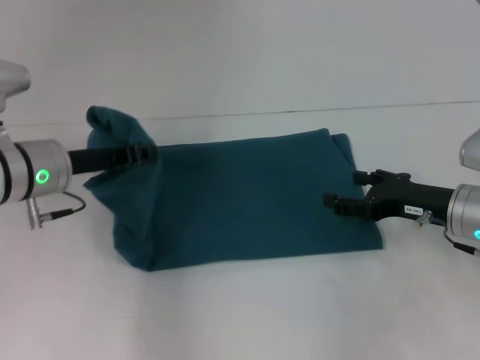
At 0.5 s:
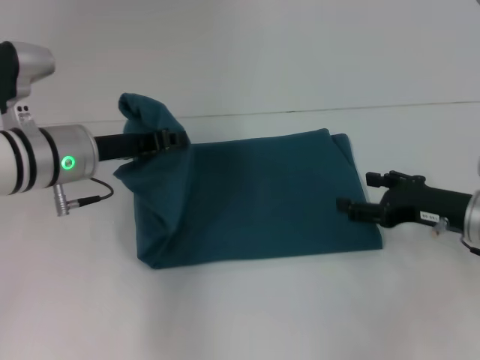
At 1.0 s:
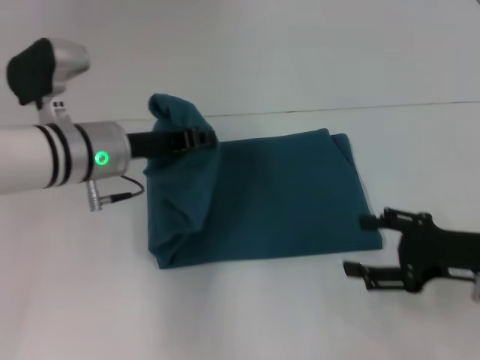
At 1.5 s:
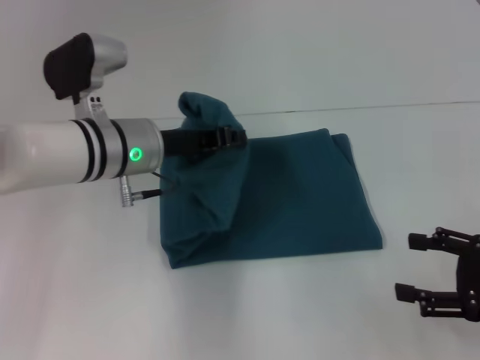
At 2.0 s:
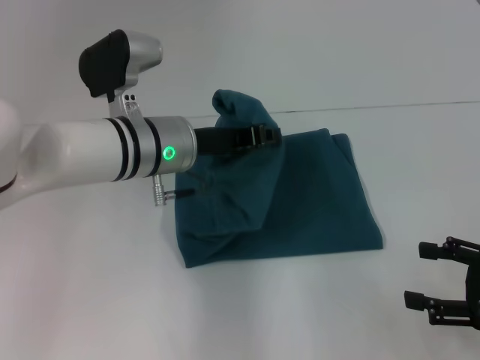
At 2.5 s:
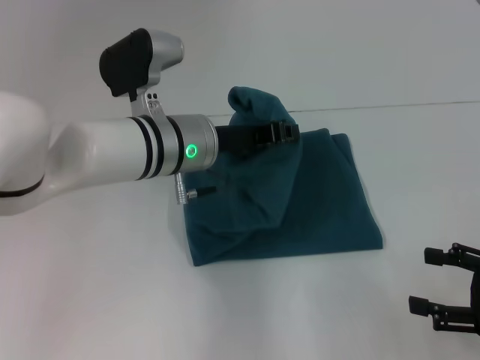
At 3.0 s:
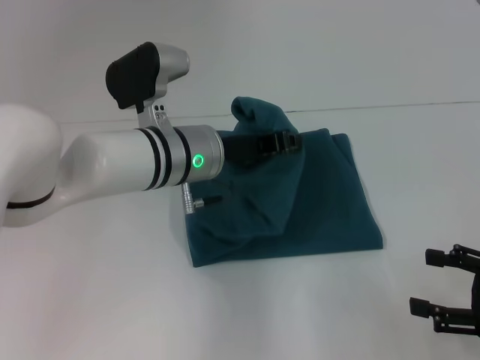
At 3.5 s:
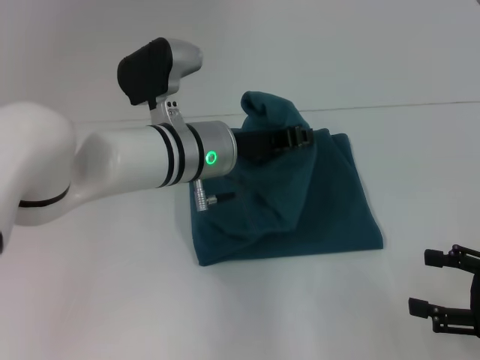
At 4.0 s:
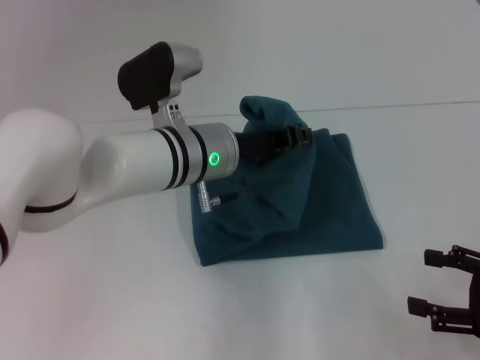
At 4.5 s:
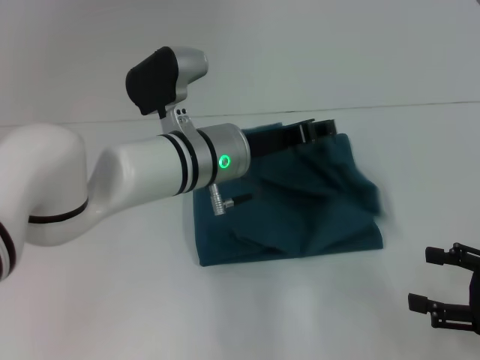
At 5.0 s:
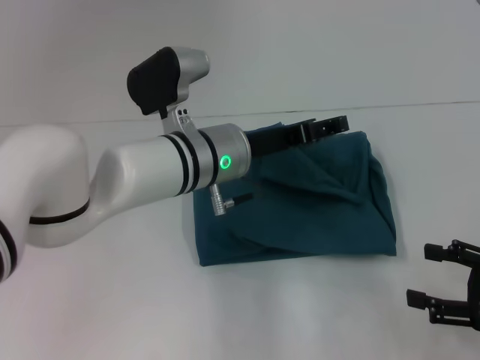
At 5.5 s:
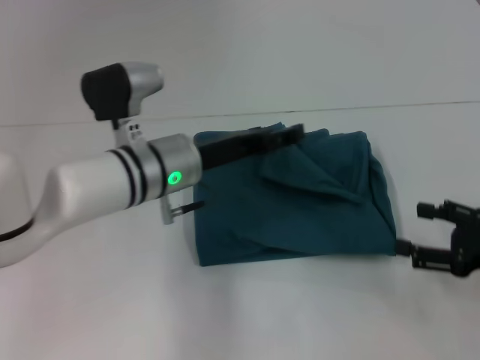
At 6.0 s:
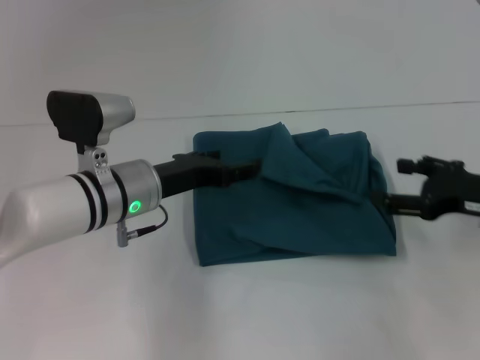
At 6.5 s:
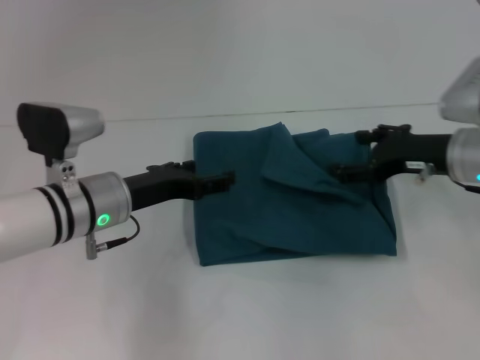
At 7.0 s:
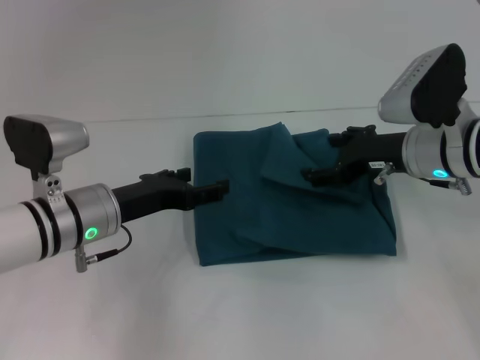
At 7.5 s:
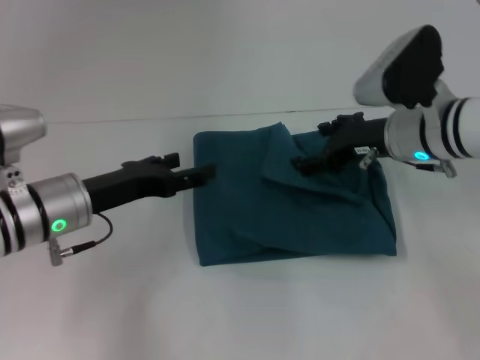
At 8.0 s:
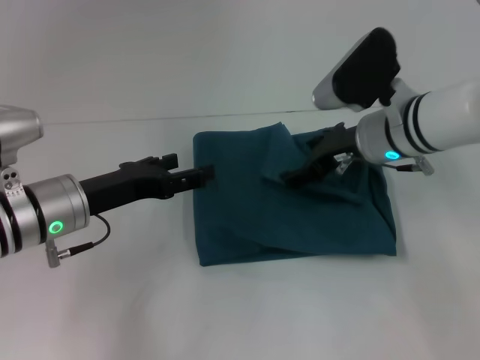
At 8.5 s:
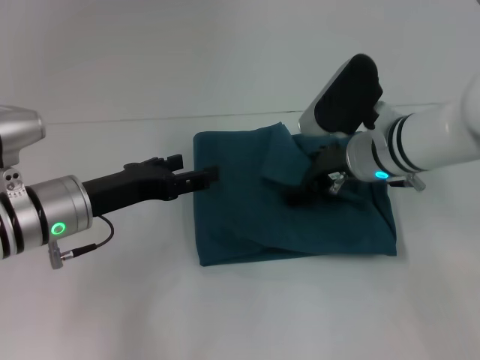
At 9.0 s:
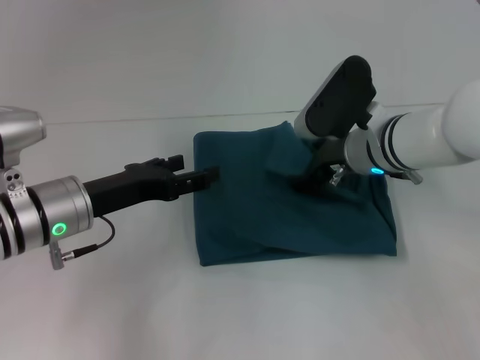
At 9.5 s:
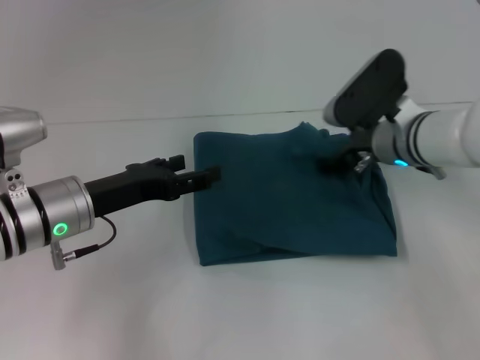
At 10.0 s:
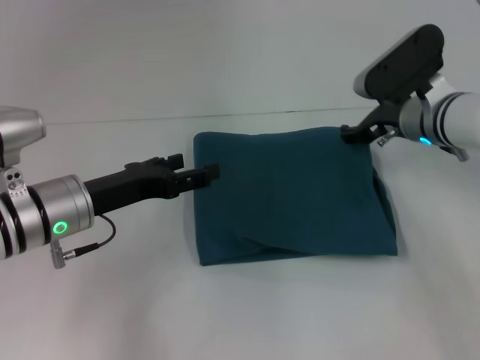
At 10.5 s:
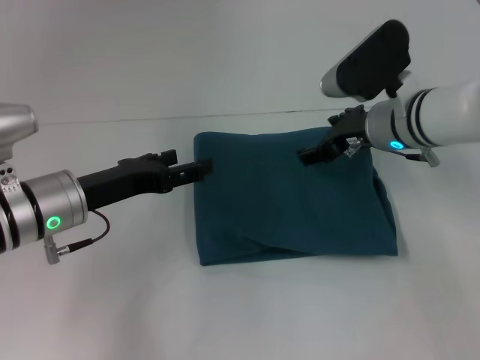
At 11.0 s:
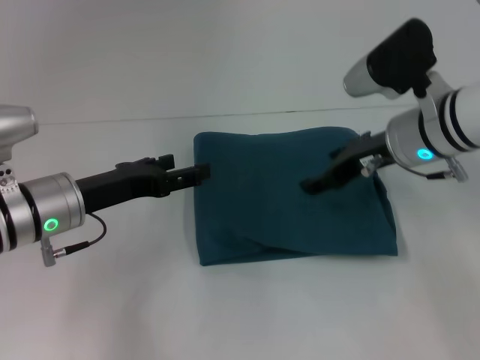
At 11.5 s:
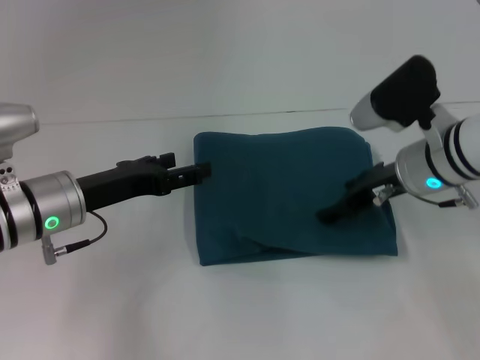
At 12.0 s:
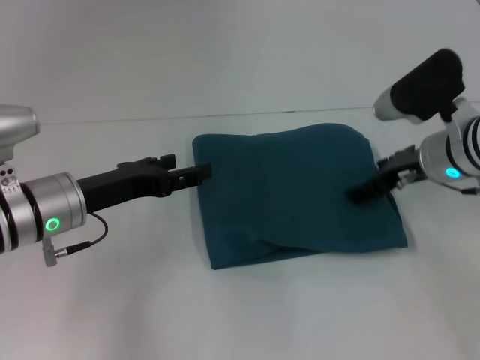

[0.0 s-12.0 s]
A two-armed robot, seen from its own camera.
Step, 0.0 to 4.5 s: Fold the clothes to the left.
0.0 to 2.0 s: The left gripper shifts about 10 cm to the right. Meanwhile the right gripper goes approximately 15 cm backward and to the right.
2.0 to 4.0 s: The grippers move only a little.
4.0 to 6.0 s: The left gripper heads to the left, covering about 10 cm, and opens its fingers; the right gripper is displaced forward by approximately 10 cm.
6.0 to 8.0 s: The right gripper is displaced to the left and forward by approximately 20 cm. The left gripper shifts some 5 cm to the left.
8.0 to 10.0 s: The right gripper changes place by approximately 5 cm.

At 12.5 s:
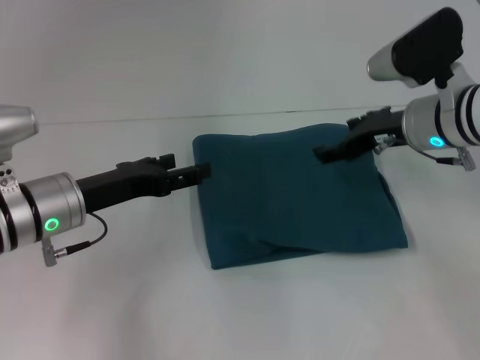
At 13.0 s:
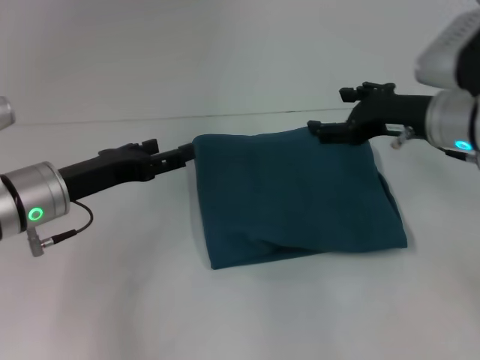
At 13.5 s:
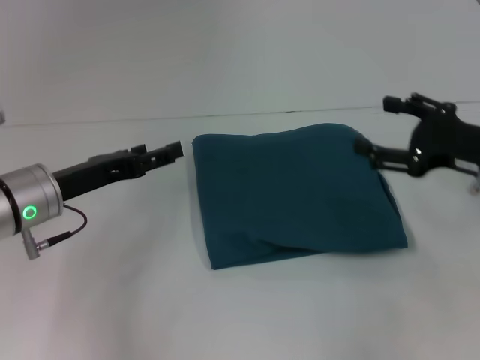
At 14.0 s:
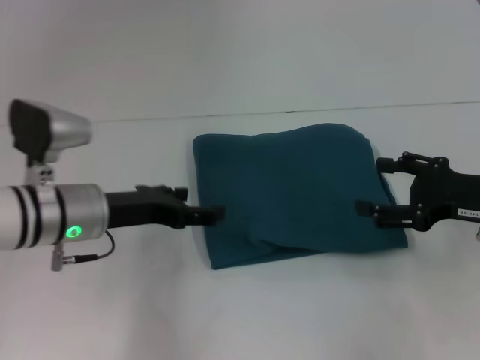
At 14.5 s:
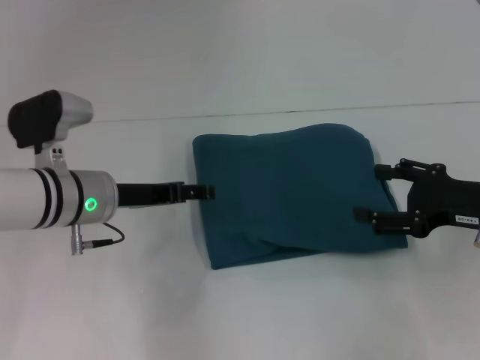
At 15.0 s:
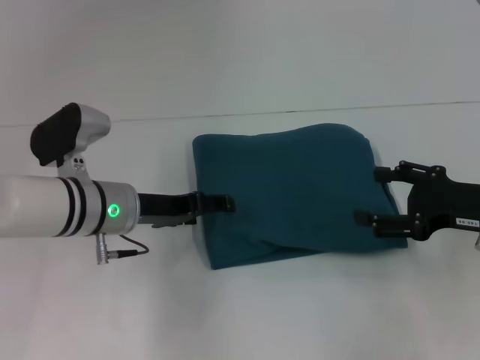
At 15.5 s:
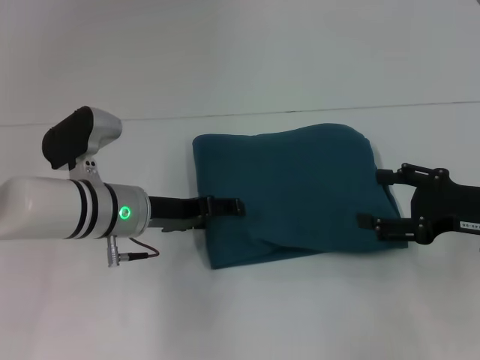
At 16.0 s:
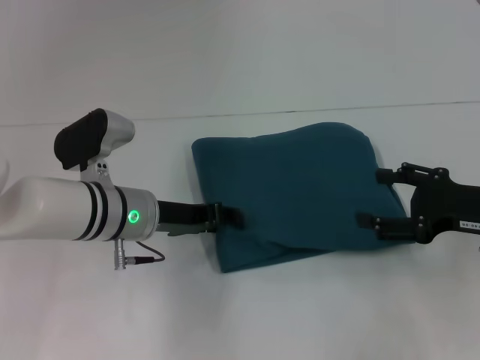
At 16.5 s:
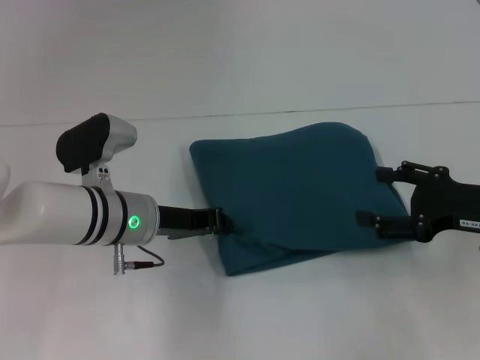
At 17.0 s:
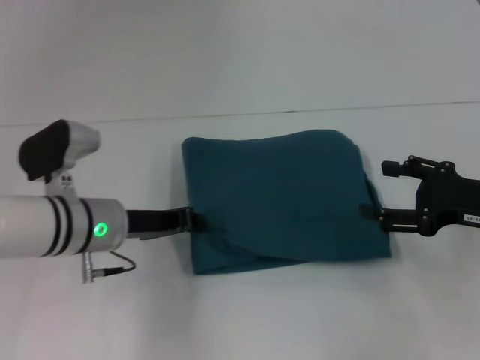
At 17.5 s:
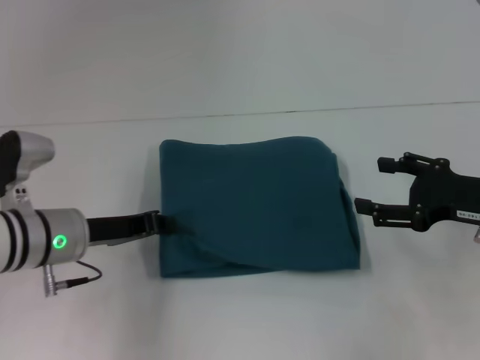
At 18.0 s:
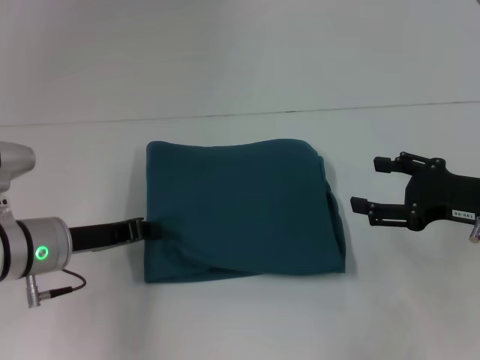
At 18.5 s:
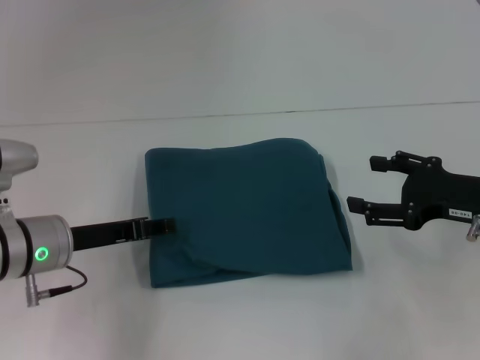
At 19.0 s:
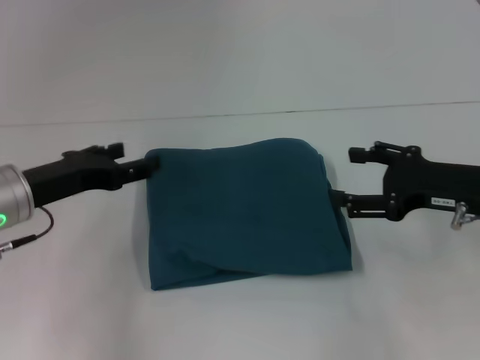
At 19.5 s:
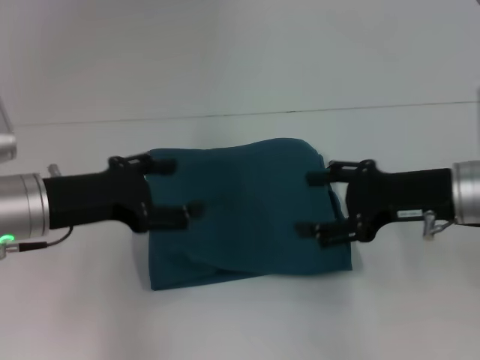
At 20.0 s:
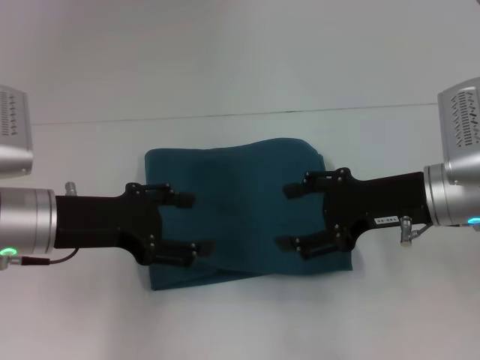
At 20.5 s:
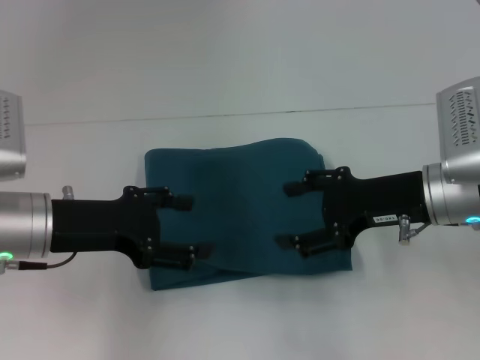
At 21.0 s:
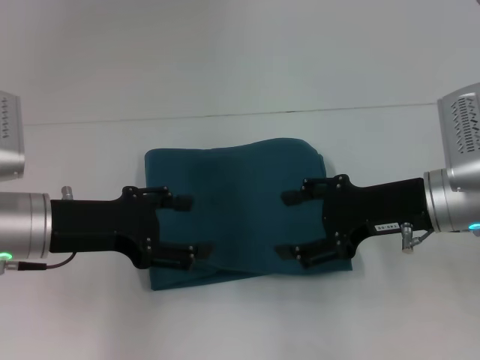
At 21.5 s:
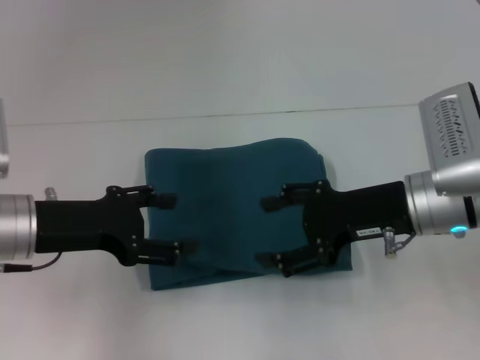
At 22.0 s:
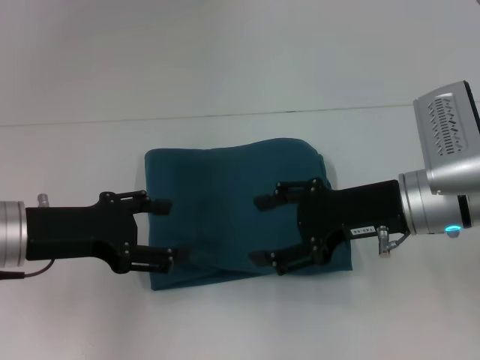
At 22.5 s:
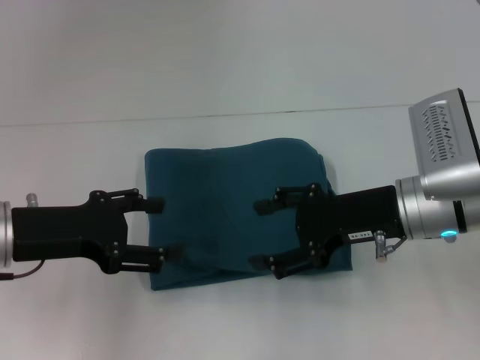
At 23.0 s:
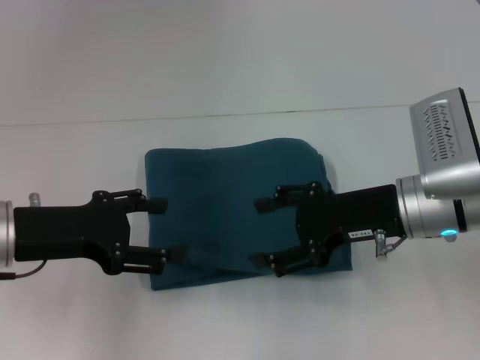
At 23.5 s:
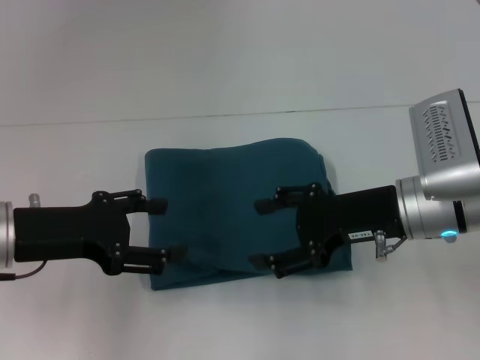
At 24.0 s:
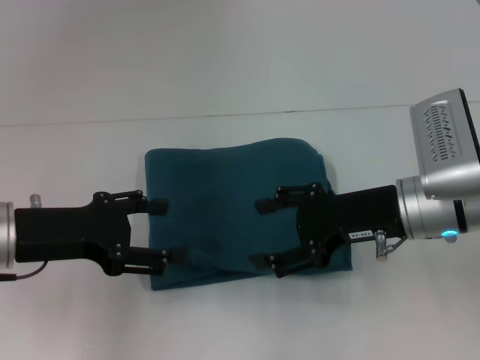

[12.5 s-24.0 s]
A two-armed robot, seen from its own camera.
12.5 to 14.5 s: The right gripper goes about 15 cm backward and to the right.
14.5 to 16.5 s: The left gripper closes up.
16.5 to 18.5 s: The left gripper goes approximately 10 cm to the left.
18.5 to 20.0 s: The right gripper moves to the left, some 10 cm. Meanwhile the left gripper moves upward, some 5 cm, and opens its fingers.
20.0 to 22.0 s: The grippers make only small movements.
22.0 to 24.0 s: Both grippers stay put.

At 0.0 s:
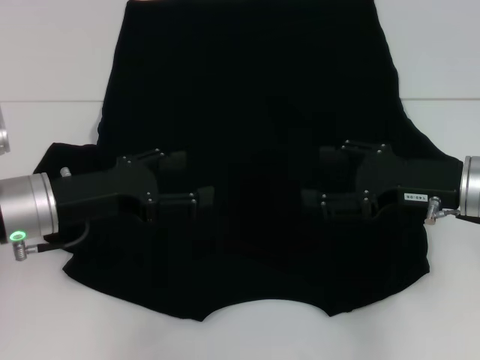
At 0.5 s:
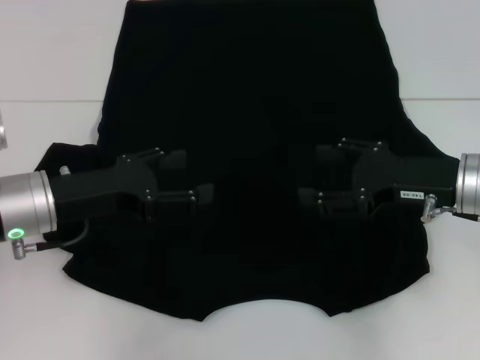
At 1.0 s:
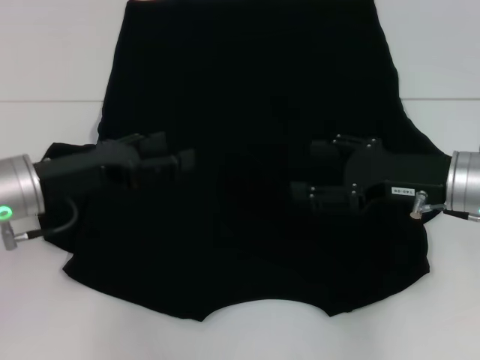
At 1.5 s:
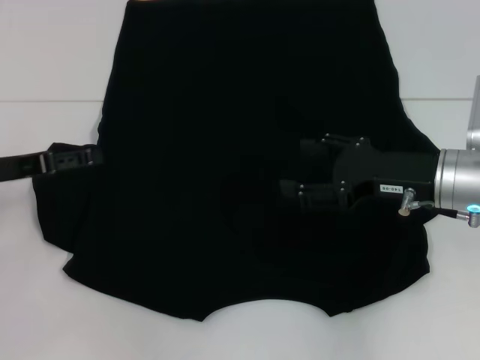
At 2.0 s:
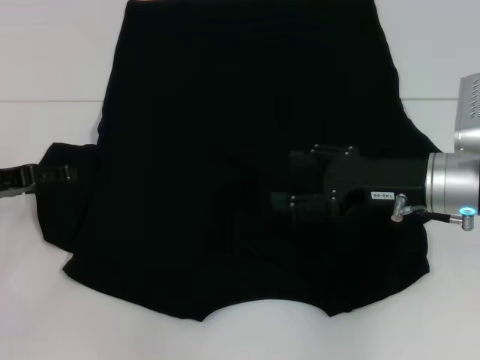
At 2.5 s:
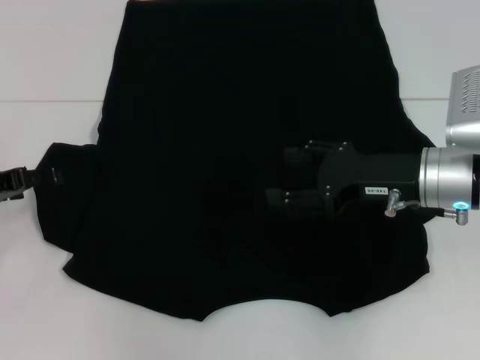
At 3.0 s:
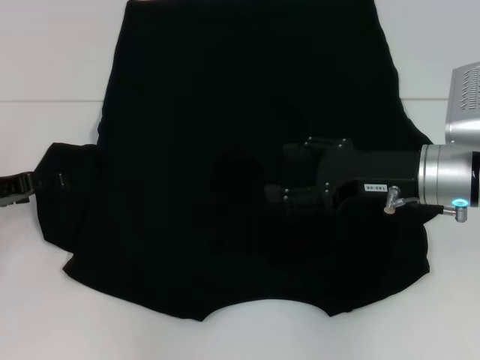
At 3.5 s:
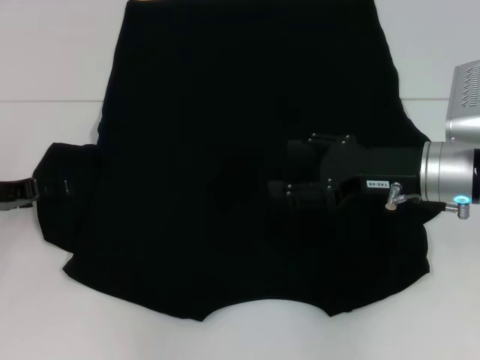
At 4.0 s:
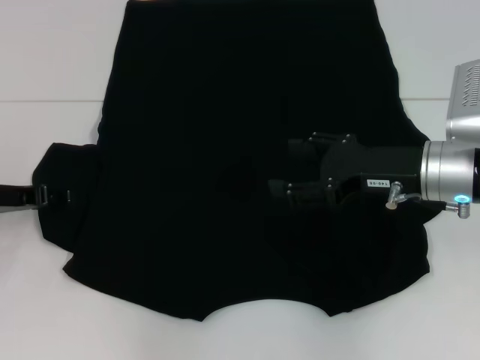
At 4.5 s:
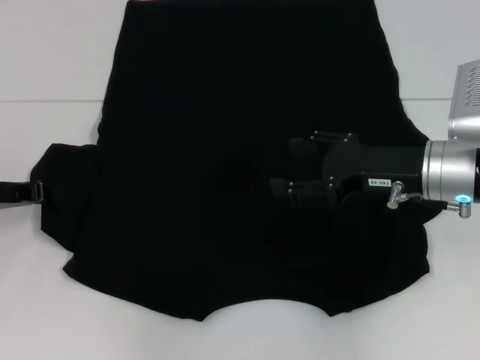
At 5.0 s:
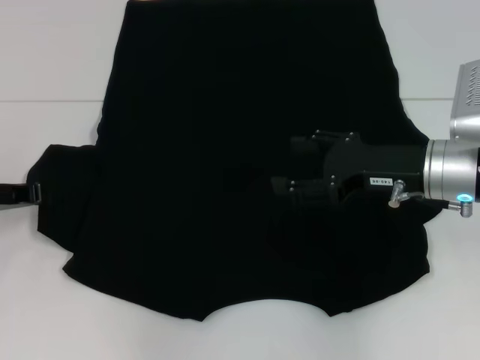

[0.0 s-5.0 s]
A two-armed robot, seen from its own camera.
0.0 to 2.5 s: The left gripper moves to the left, approximately 10 cm.
2.5 to 5.0 s: The left gripper closes up.
